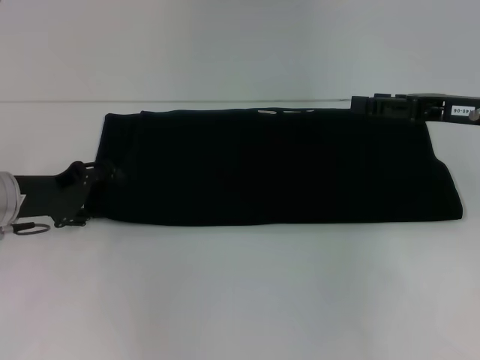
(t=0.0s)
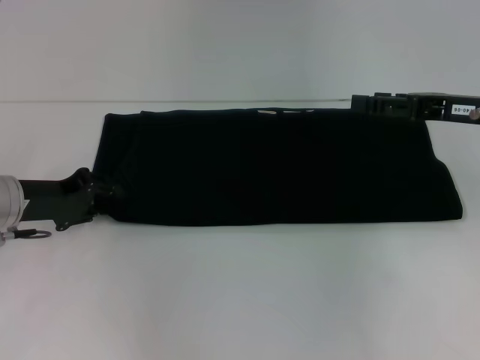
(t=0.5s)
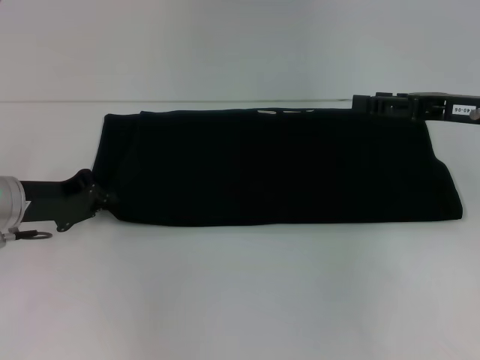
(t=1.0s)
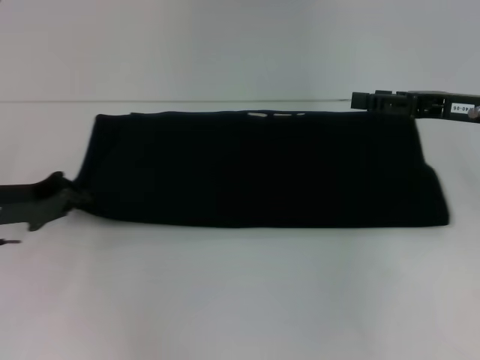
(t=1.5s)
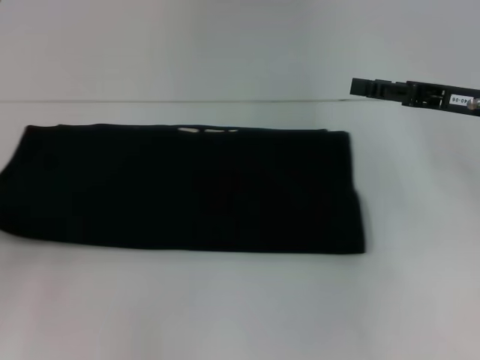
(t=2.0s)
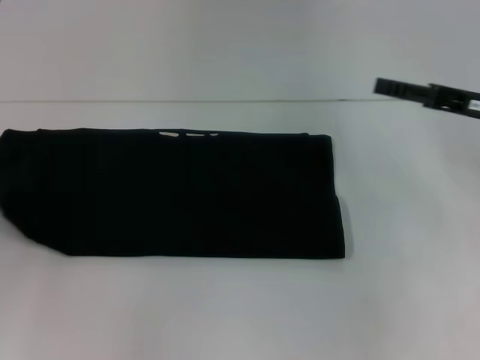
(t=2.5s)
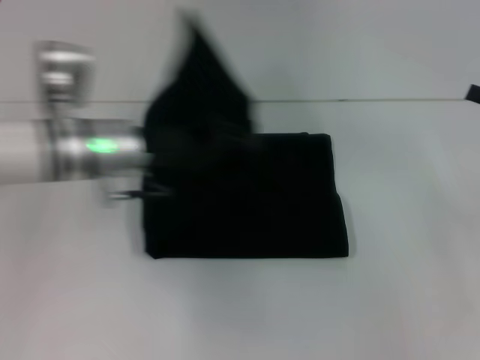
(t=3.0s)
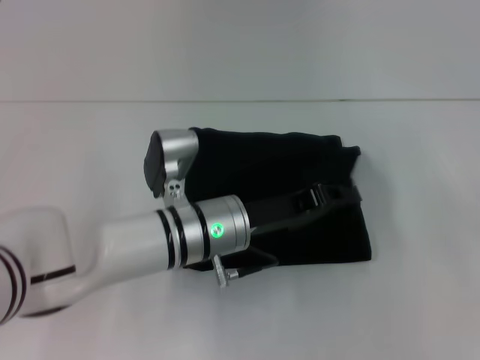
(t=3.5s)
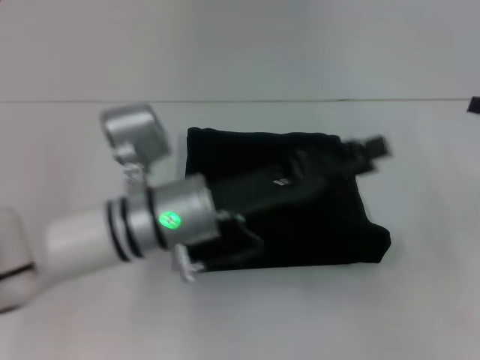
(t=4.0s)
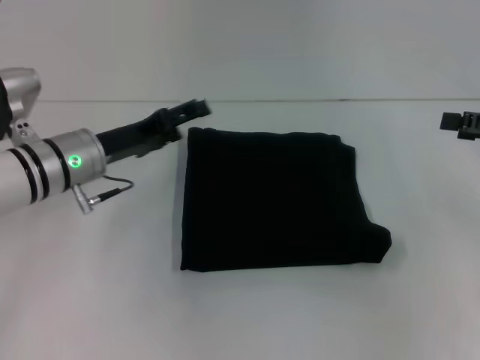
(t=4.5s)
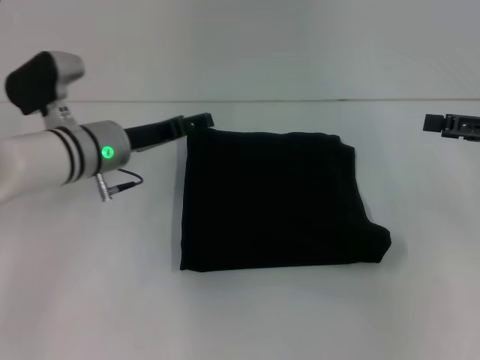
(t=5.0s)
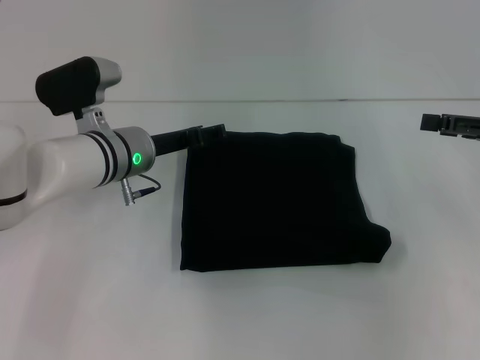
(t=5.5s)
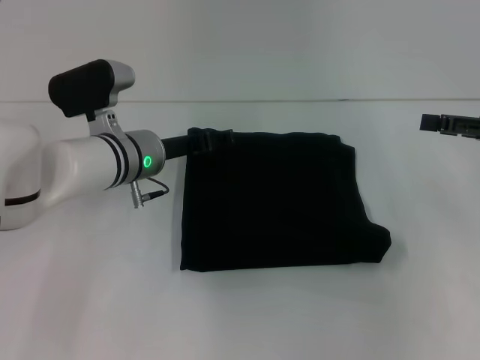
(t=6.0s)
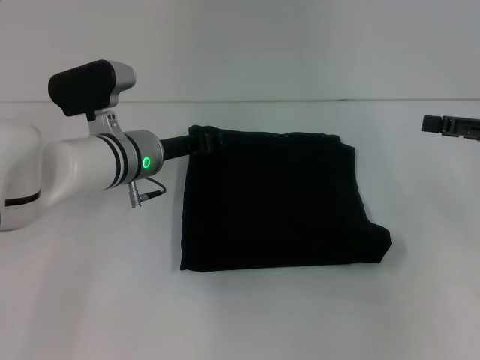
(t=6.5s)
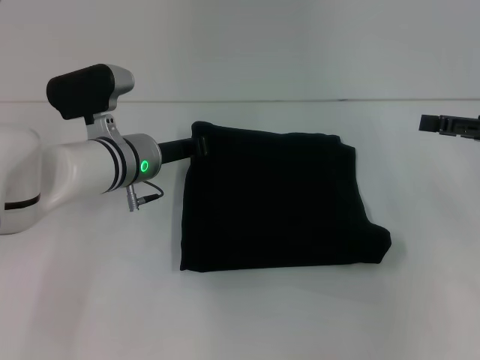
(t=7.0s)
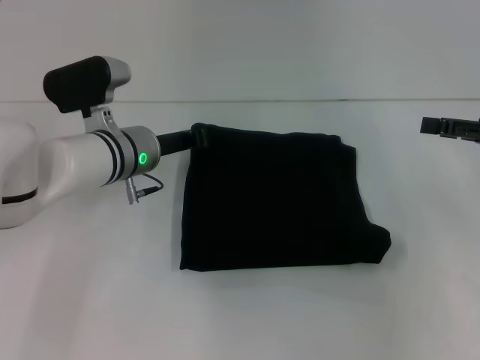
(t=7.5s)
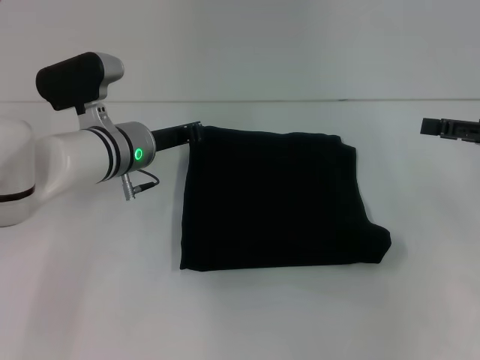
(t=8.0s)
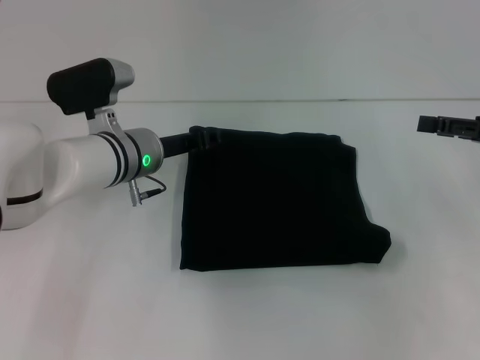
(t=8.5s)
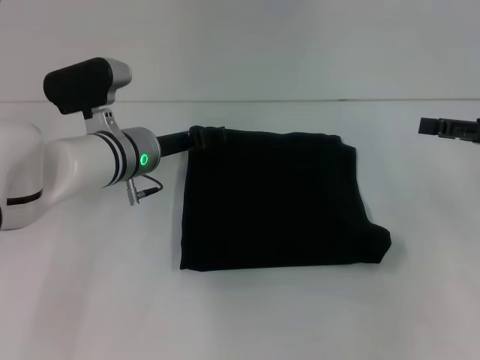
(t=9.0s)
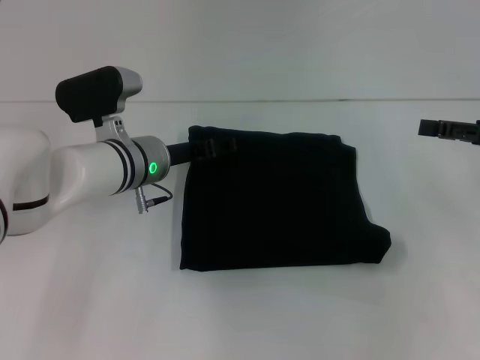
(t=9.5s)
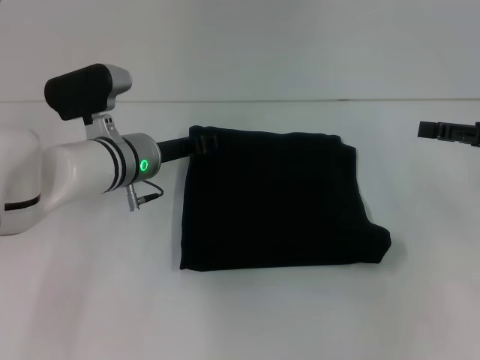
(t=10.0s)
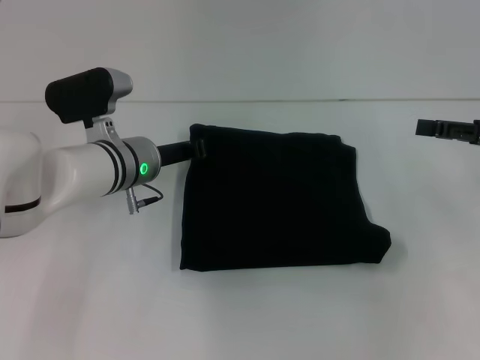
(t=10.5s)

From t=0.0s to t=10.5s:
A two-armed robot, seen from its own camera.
Step, from t=0.0s to t=4.0s: Fold the clothes with your left hand.
From t=0.0s to t=2.0s: The left gripper travels to the left and backward by roughly 10 cm, and closes.
From t=2.0s to t=4.0s: The right gripper travels to the right by roughly 10 cm. Meanwhile the left gripper is displaced to the right by roughly 30 cm, and opens.
From t=4.0s to t=6.5s: The left gripper goes approximately 10 cm forward.
From t=6.5s to t=8.5s: The left gripper closes.
From t=8.5s to t=10.5s: The left gripper opens and closes again.

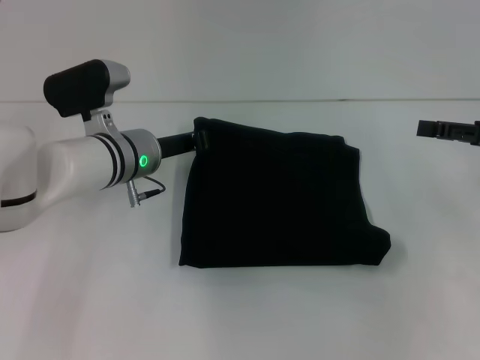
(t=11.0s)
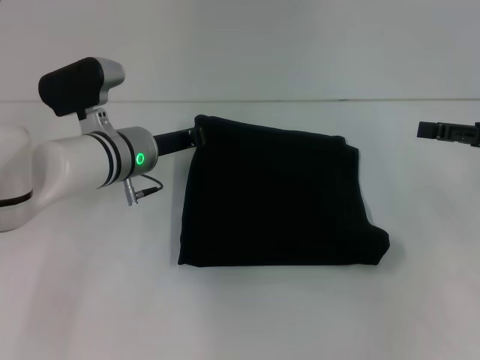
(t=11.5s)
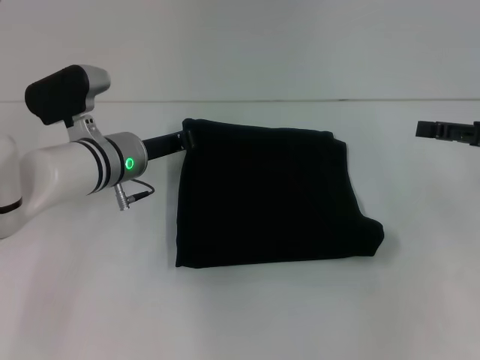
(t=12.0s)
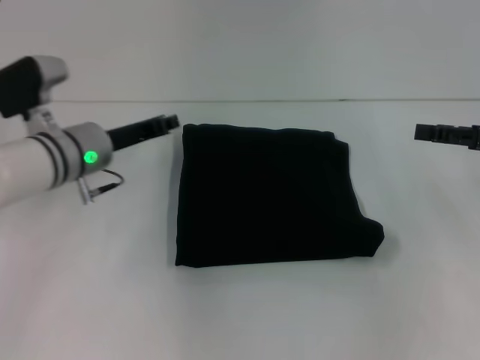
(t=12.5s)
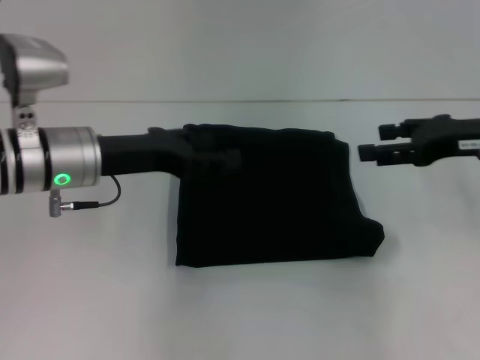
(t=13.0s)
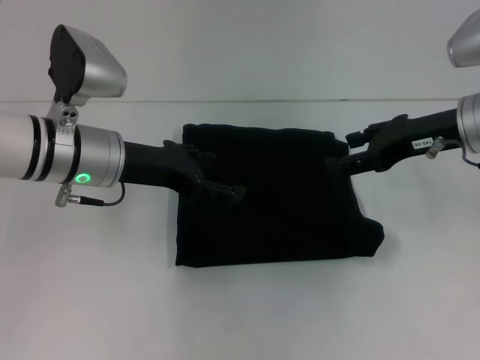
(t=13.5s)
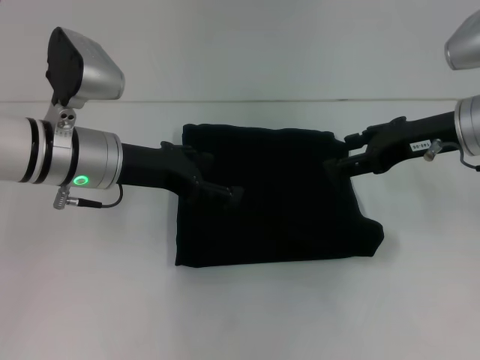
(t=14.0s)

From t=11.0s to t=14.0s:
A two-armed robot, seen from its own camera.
From t=11.0s to t=12.5s: The left gripper shifts roughly 5 cm to the left.
From t=12.5s to t=14.0s: The left gripper changes place by some 5 cm, and opens its fingers. The right gripper is displaced to the left by about 10 cm.
